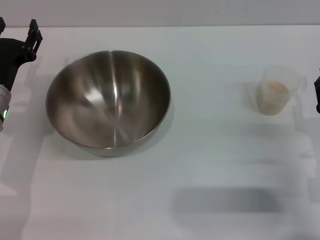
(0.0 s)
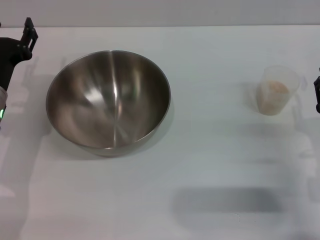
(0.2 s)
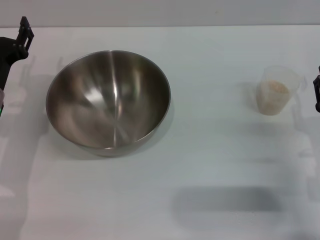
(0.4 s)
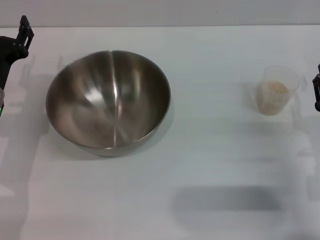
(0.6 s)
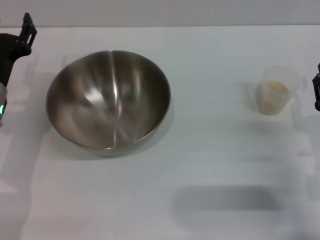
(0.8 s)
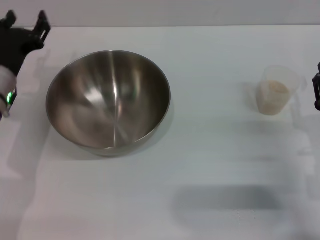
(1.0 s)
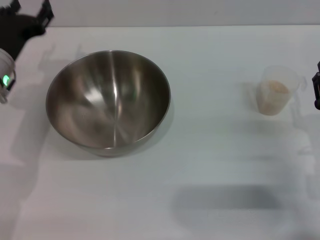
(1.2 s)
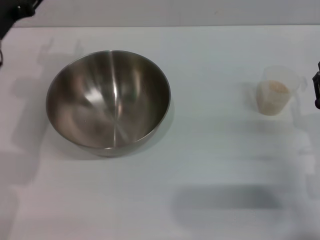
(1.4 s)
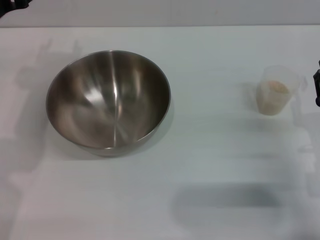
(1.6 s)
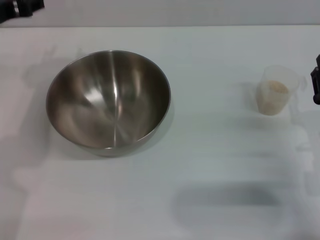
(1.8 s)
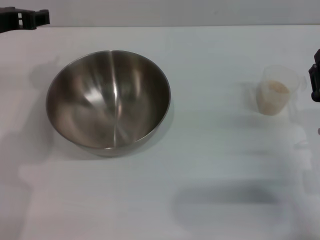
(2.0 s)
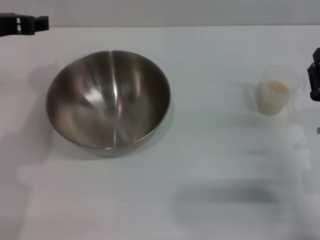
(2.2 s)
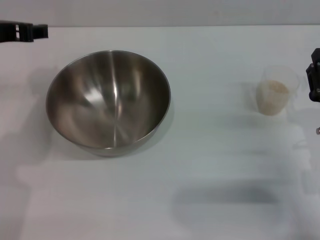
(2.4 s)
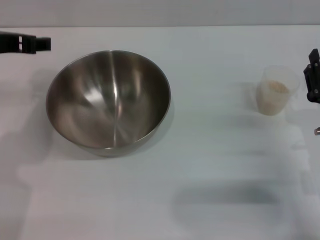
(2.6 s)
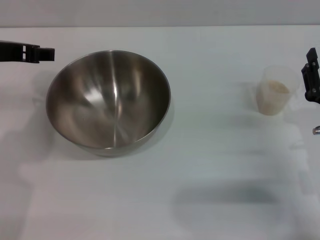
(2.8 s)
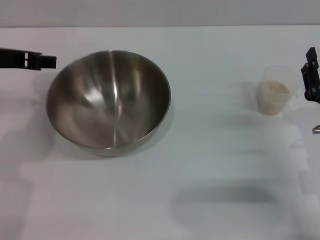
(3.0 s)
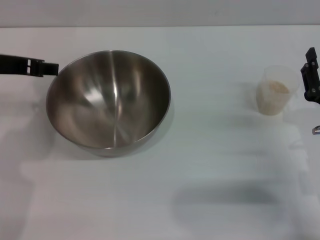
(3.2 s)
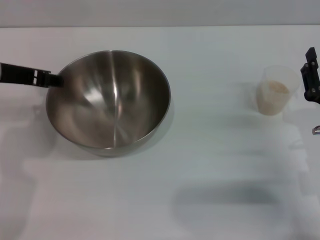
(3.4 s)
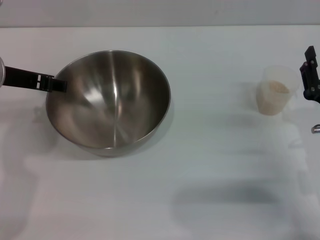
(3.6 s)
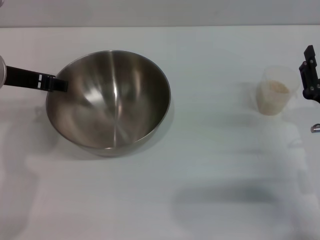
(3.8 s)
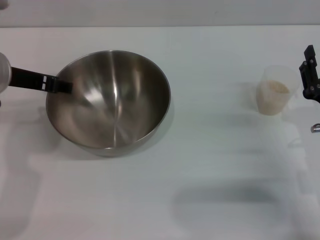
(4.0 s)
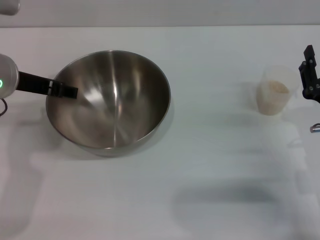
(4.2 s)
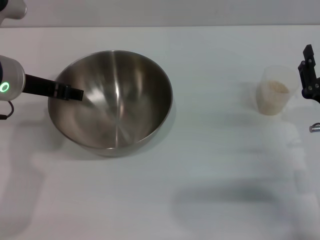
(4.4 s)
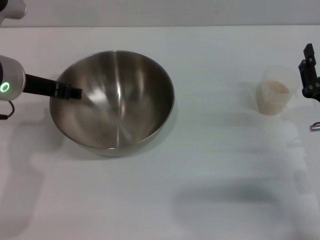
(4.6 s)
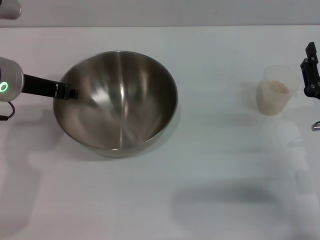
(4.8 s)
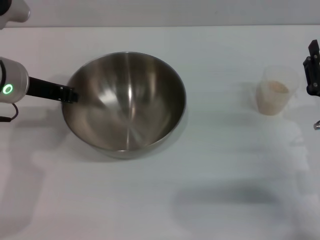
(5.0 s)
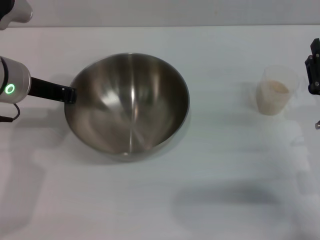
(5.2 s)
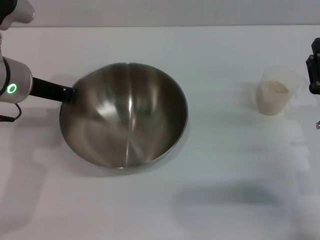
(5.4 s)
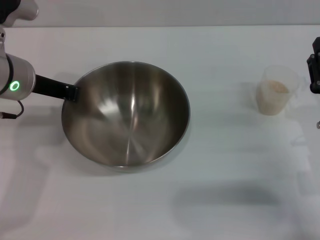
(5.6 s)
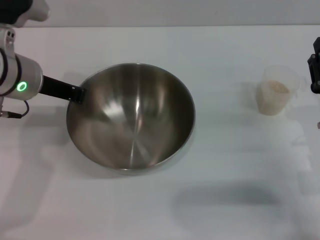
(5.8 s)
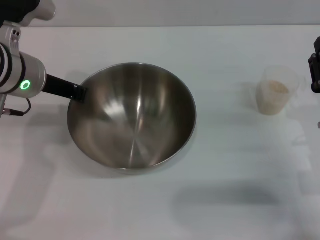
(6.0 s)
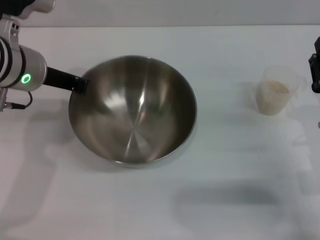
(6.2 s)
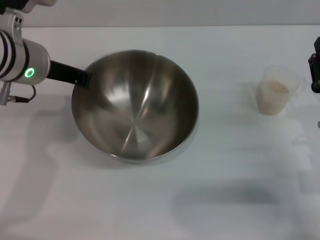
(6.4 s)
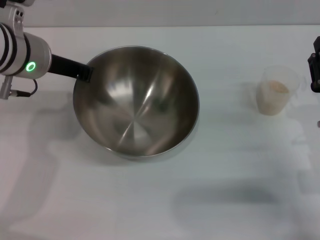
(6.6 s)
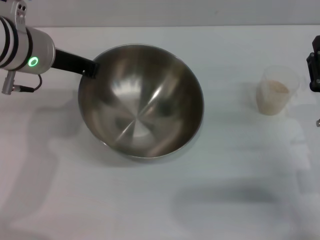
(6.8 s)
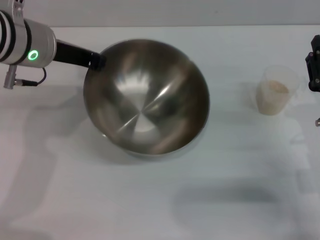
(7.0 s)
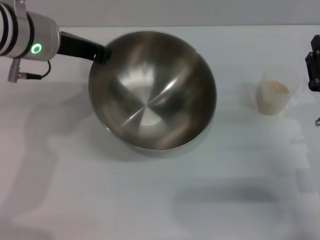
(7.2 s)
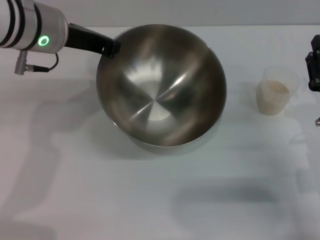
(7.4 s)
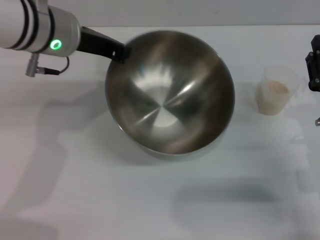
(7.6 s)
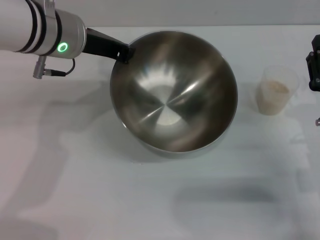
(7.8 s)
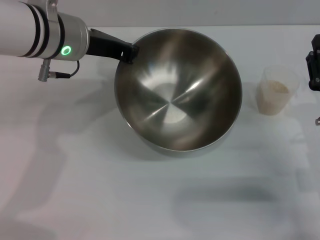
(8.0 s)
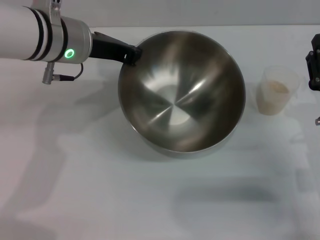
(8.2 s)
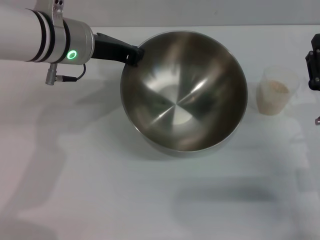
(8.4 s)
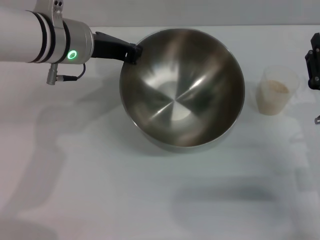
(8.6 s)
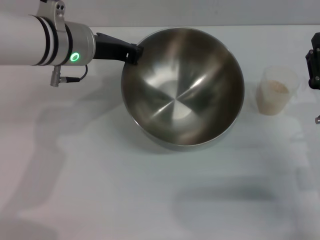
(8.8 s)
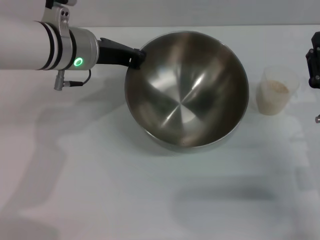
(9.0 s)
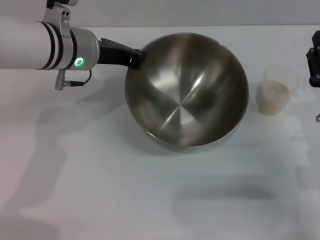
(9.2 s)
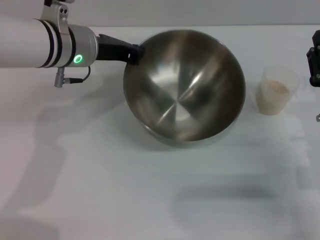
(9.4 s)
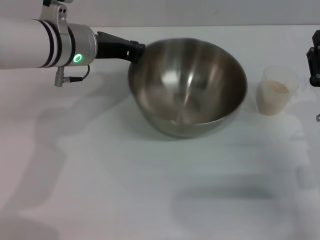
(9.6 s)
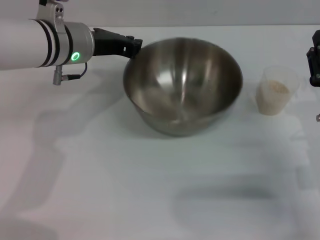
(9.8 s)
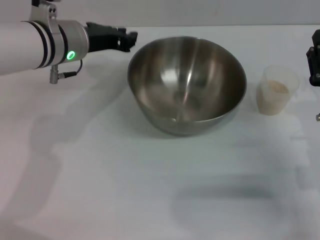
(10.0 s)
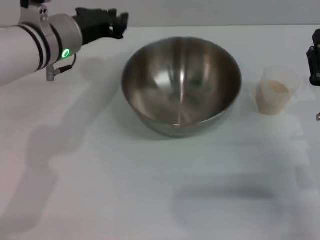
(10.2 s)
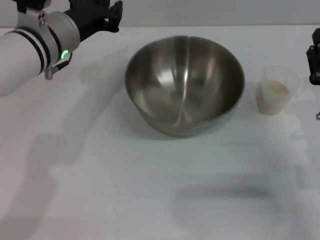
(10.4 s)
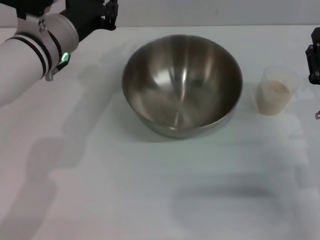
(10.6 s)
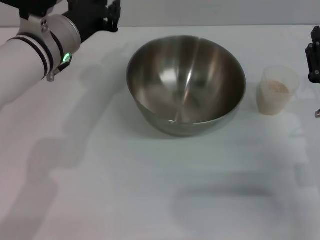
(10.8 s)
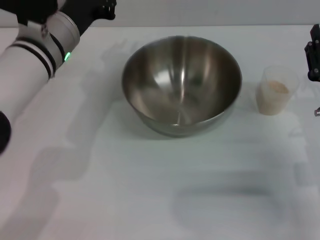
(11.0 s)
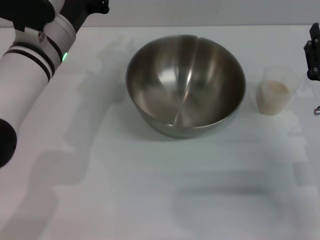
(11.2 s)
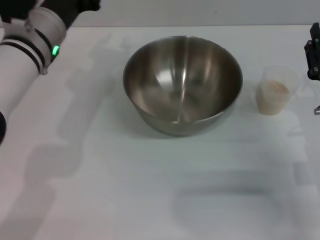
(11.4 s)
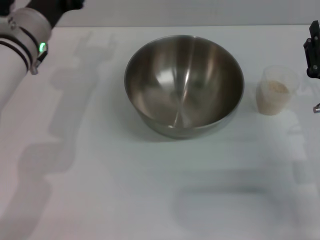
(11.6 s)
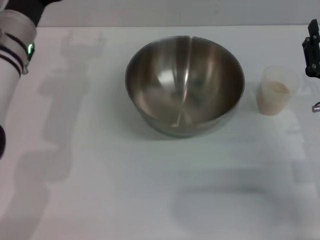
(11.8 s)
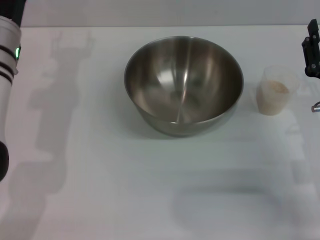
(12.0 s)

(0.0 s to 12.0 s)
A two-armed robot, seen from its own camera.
Task of the whole recording: Place the bowl in the middle of the table with one hand and pour the rice from the grain cup into it with the other hand.
Step, 0.0 s - 7.4 s: Pick up the bowl with the left gripper.
Step, 7.6 s - 10.6 s: Place the bowl in the center of view with the left gripper.
0.0 s - 1.6 s: The left gripper travels upward by roughly 15 cm.
1.6 s - 3.0 s: The left gripper shifts by some 5 cm.
3.0 s - 4.4 s: The grippers make only small movements.
4.4 s - 6.0 s: The left gripper closes its fingers.
6.0 s - 7.6 s: The left gripper moves roughly 5 cm.
7.6 s - 9.0 s: The left gripper moves approximately 5 cm.
10.4 s - 12.0 s: The left gripper moves to the left, about 5 cm, and opens its fingers.

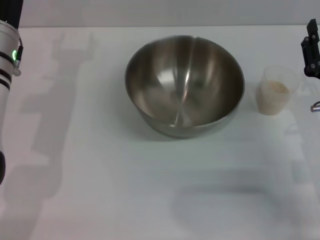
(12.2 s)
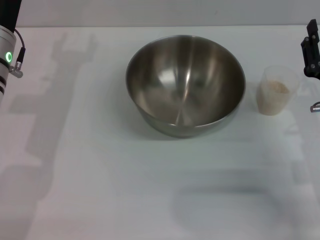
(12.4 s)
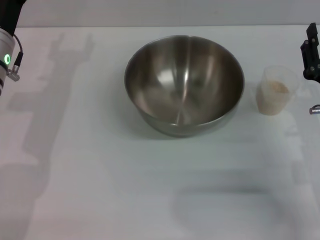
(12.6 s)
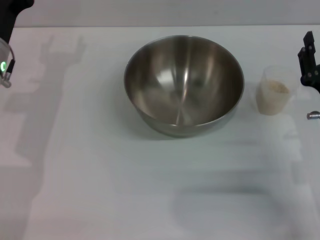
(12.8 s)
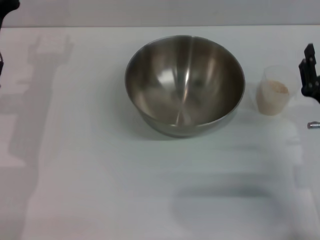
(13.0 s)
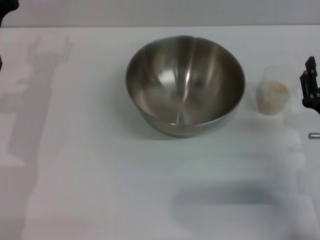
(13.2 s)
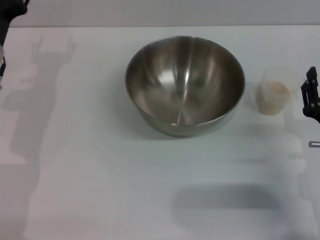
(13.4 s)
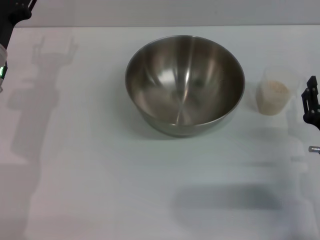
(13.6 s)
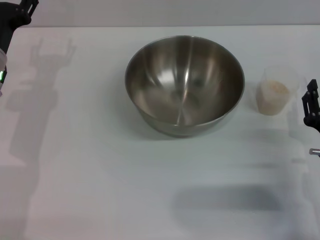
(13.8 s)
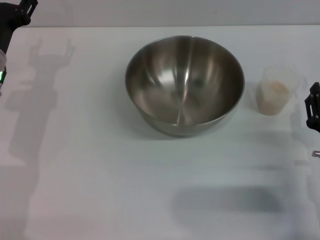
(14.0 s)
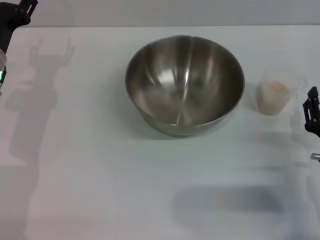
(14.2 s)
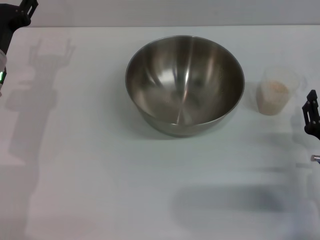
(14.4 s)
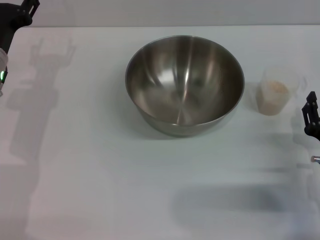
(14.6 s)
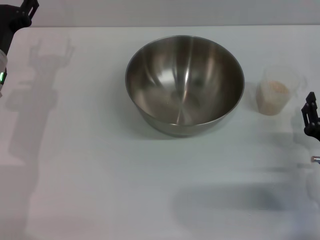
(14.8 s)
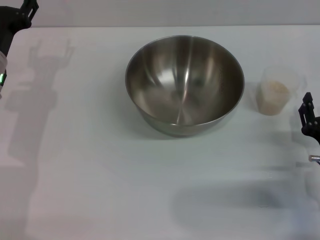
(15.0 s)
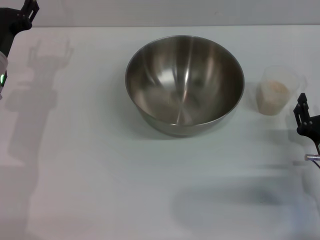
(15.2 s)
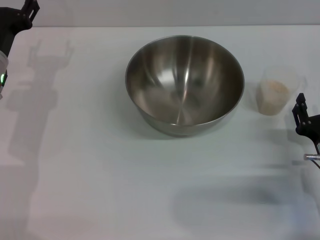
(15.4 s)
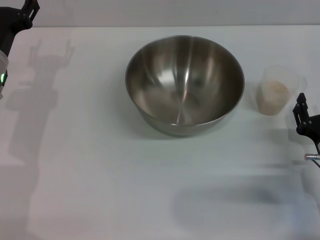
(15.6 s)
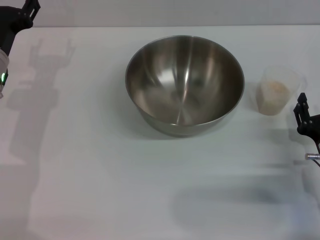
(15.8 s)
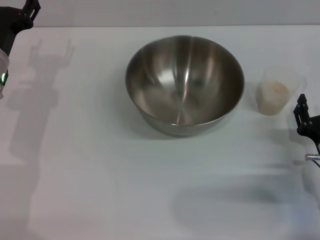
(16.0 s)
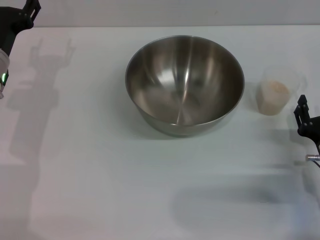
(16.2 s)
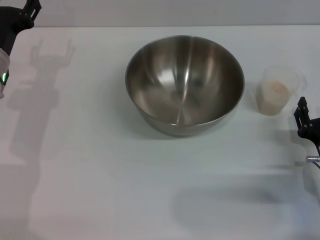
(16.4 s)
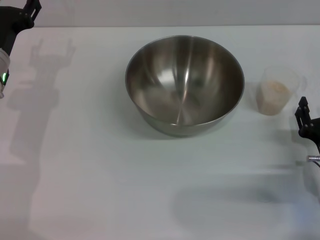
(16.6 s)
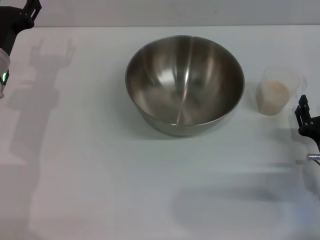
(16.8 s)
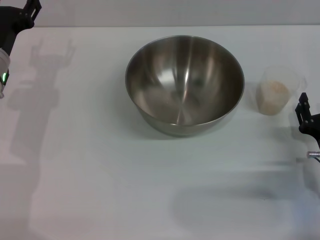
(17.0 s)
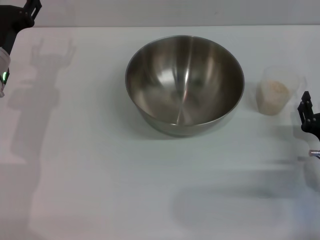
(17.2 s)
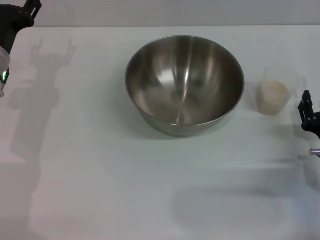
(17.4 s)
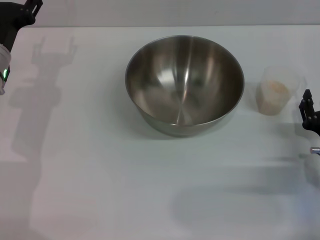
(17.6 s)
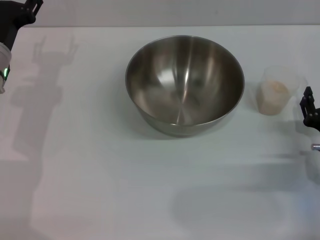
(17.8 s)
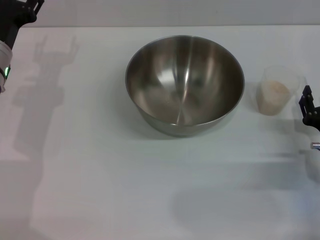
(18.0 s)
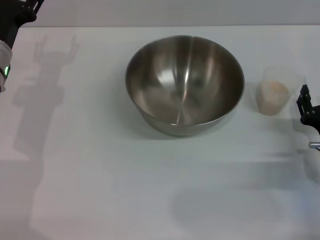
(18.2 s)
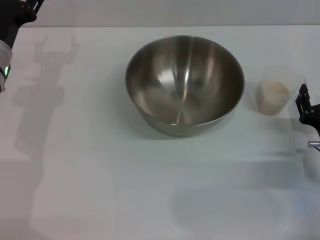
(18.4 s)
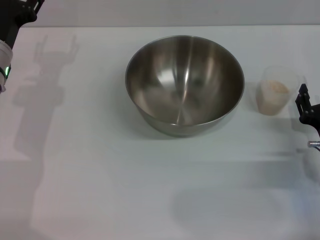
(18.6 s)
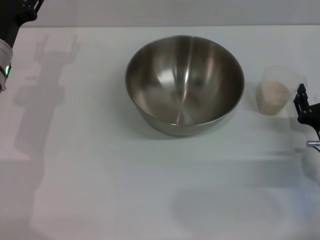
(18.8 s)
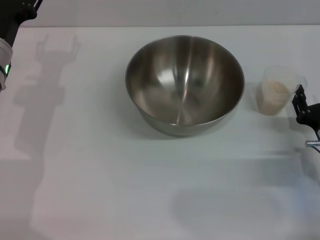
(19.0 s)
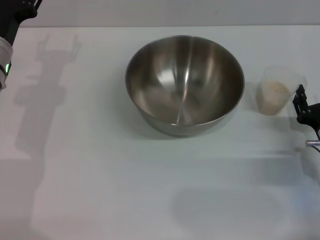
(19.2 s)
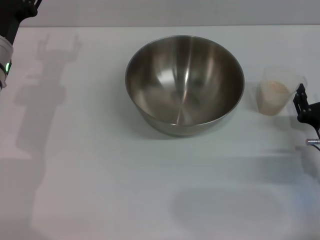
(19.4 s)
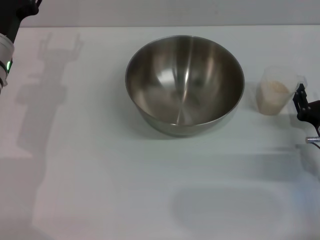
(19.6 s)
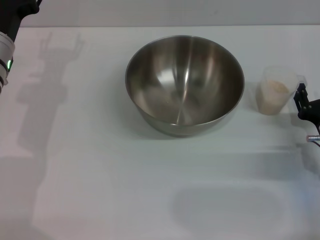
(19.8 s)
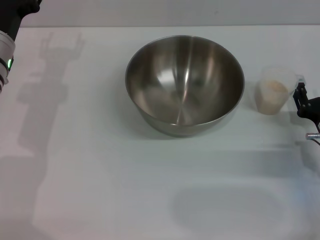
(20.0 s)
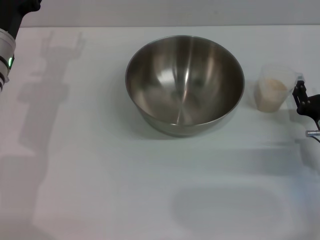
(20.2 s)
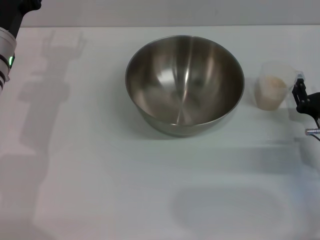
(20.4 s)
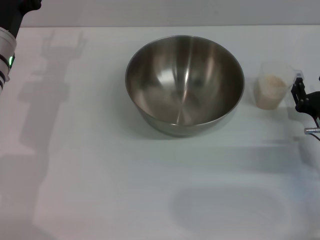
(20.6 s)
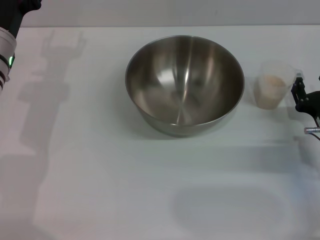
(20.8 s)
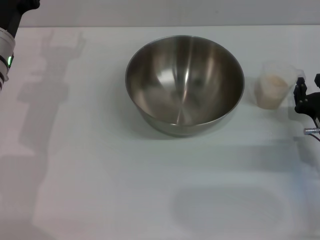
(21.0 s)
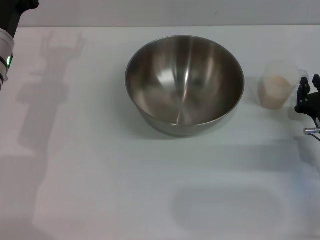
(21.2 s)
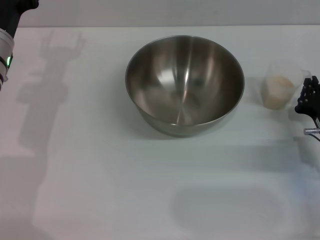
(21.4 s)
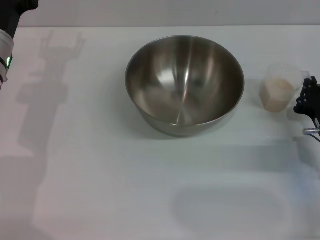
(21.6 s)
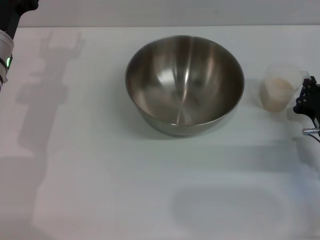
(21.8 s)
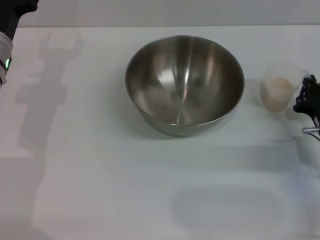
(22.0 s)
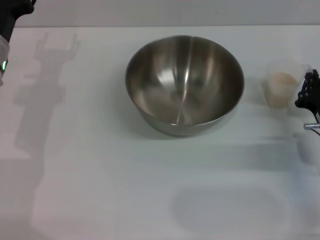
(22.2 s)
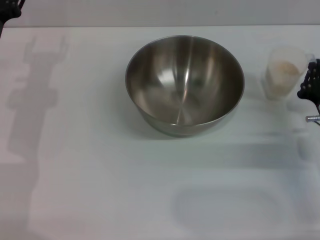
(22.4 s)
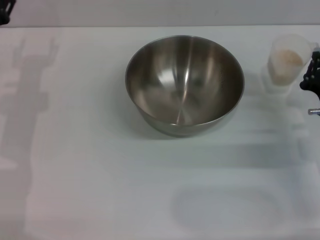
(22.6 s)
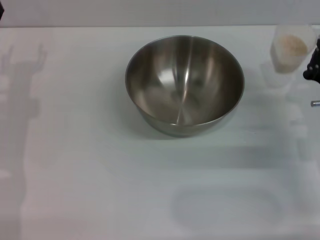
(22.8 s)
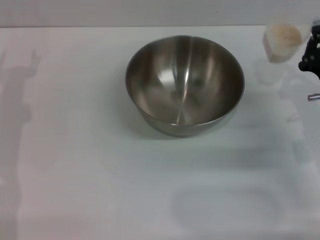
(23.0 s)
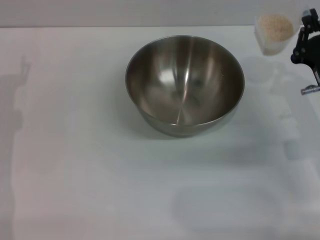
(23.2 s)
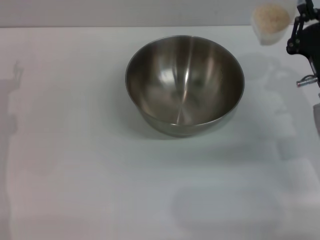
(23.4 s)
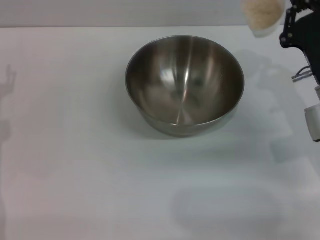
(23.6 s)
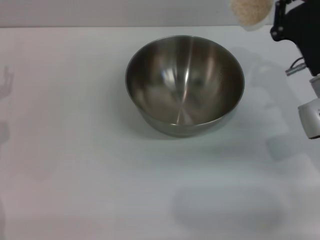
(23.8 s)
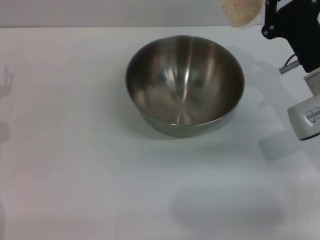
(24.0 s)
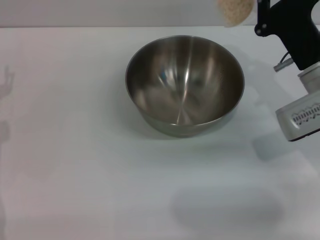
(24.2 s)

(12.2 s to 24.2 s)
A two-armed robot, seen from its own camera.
Task of the whole recording: Place the bowl in the middle of the table with one hand and pour the rice from the grain cup into it with the other hand.
Step, 12.2 s - 22.8 s: Pick up the cup with rice in it with the right gripper.
12.2 s - 13.8 s: The left gripper shifts by approximately 5 cm. The right gripper moves roughly 5 cm.
13.8 s - 15.2 s: The grippers move only a little.
15.2 s - 16.6 s: Both grippers stay about where they are.
16.6 s - 19.8 s: The grippers stay close to where they were, moving slightly.
19.8 s - 21.2 s: Both grippers stay about where they are.
21.2 s - 22.6 s: The right gripper closes its fingers.
22.6 s - 24.2 s: The left gripper heads backward, covering approximately 5 cm. The right gripper is displaced upward by about 5 cm.
